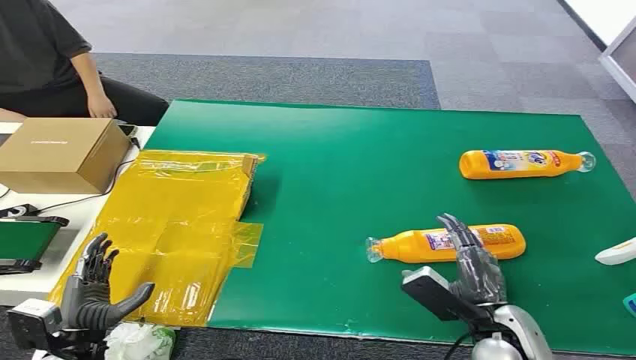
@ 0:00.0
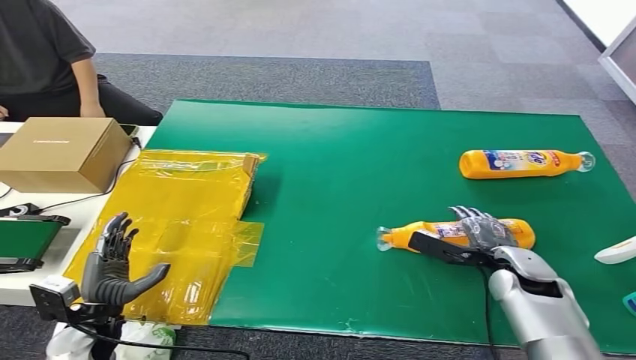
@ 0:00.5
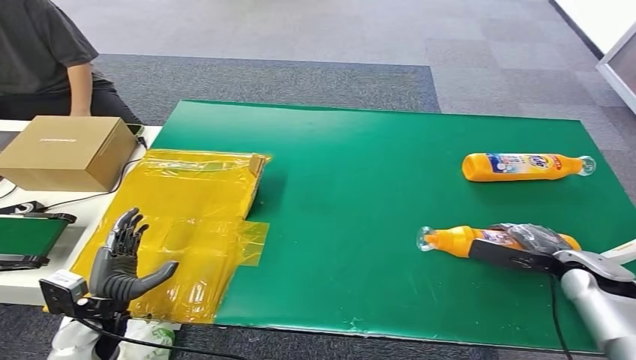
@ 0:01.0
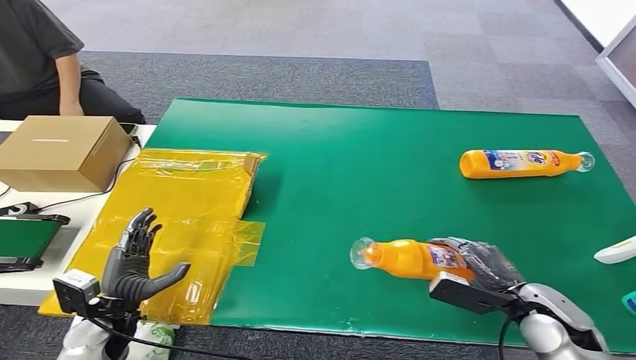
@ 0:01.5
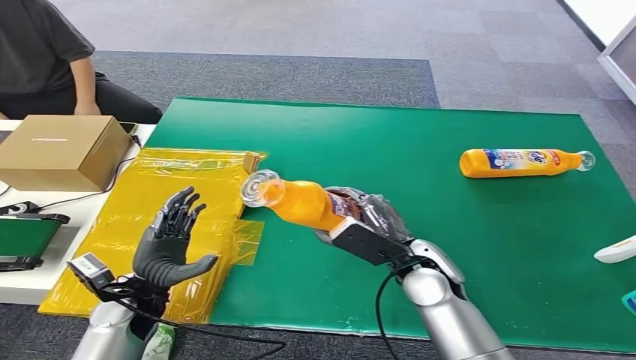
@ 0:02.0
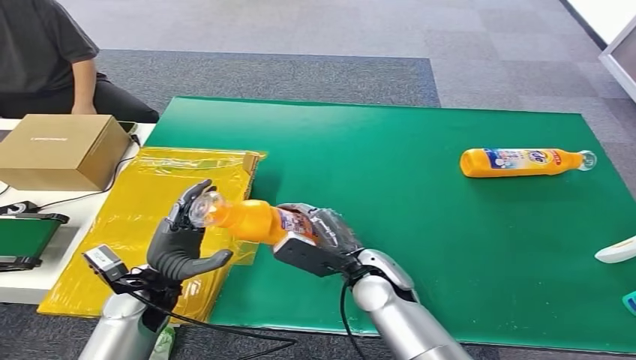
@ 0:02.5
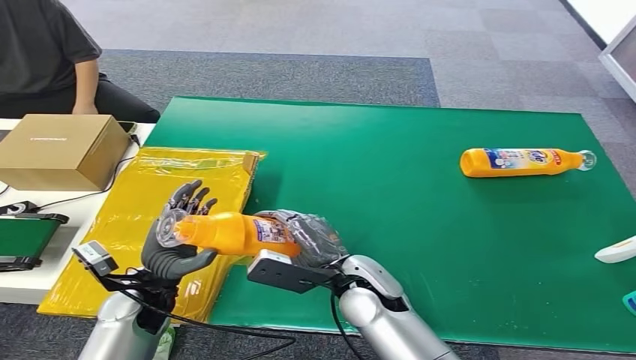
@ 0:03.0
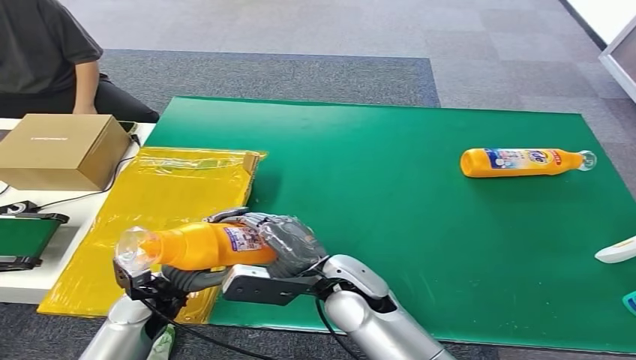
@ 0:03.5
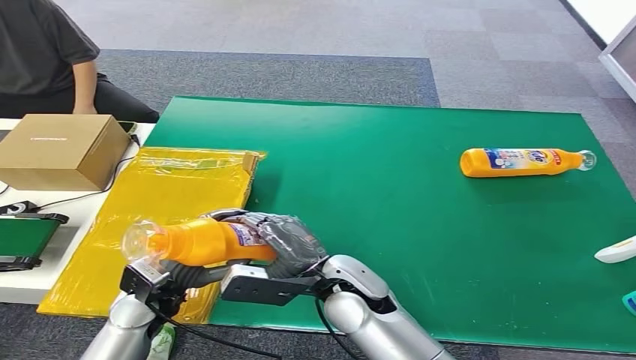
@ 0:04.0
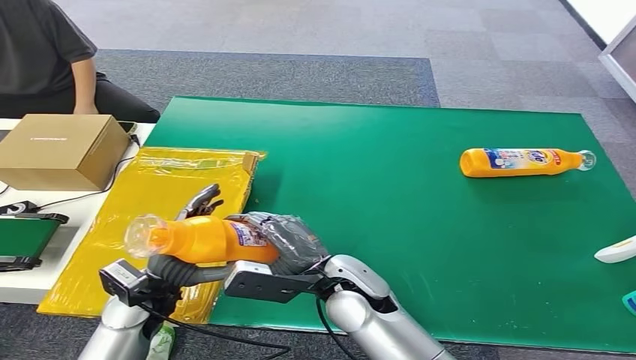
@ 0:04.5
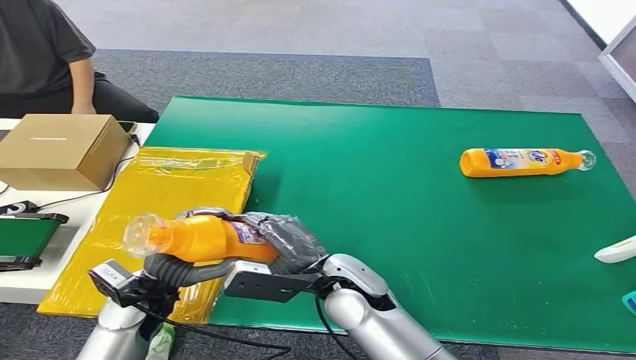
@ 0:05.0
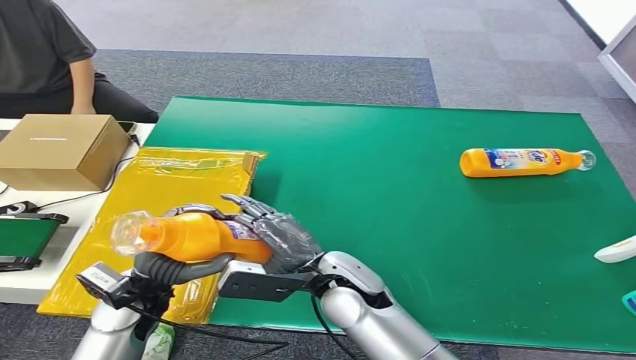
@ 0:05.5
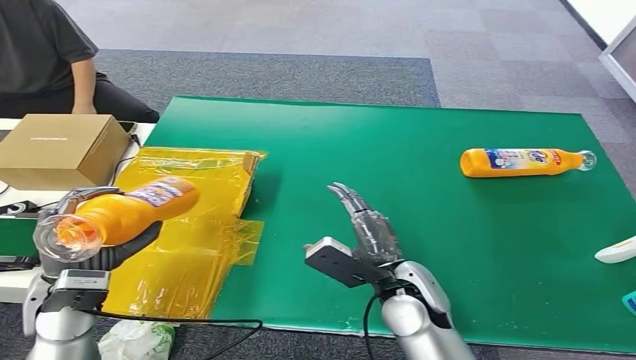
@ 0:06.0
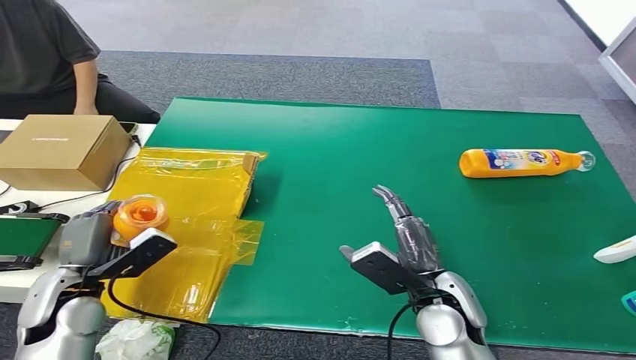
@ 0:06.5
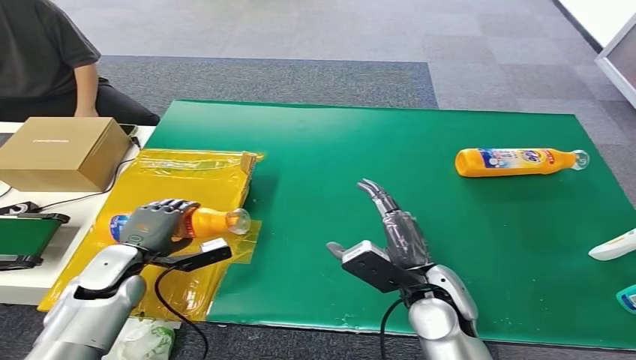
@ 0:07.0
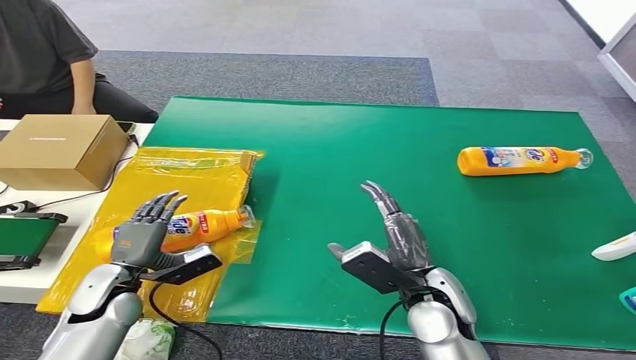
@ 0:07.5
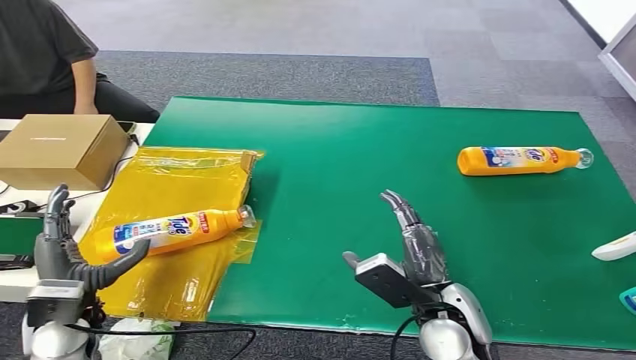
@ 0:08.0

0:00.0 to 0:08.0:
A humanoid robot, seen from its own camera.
Step, 0:00.0 to 0:01.5: Pick up the bottle from the table.
Step, 0:02.0 to 0:07.5: Turn the bottle to the front side.
0:02.0 to 0:04.0: The right hand heads to the left, covering approximately 10 cm.
0:04.0 to 0:06.0: The right hand moves to the right, approximately 10 cm. Meanwhile the left hand heads upward and to the left, covering roughly 10 cm.
0:06.0 to 0:08.0: The right hand moves some 5 cm.
